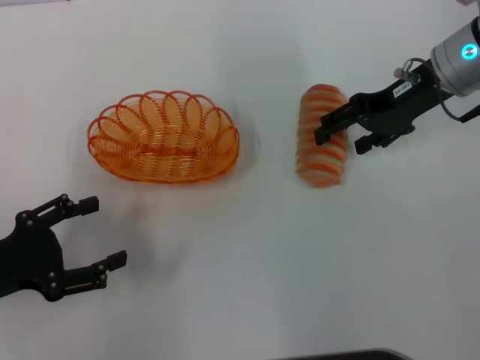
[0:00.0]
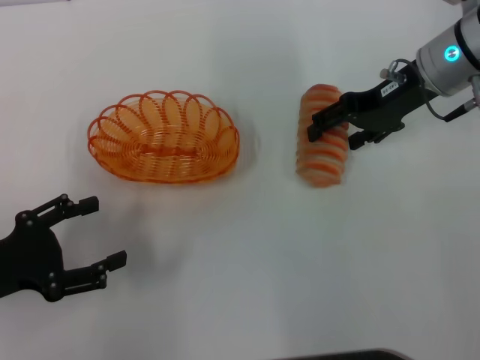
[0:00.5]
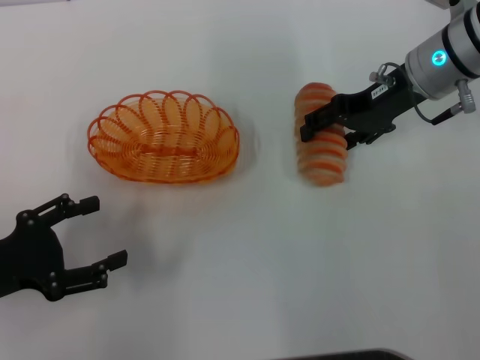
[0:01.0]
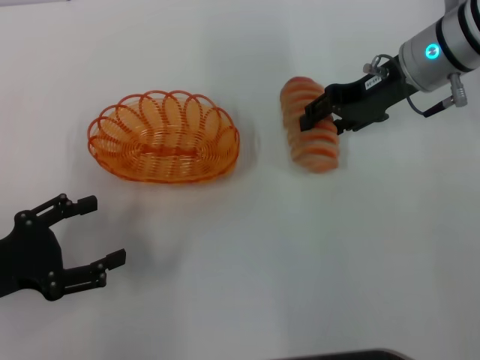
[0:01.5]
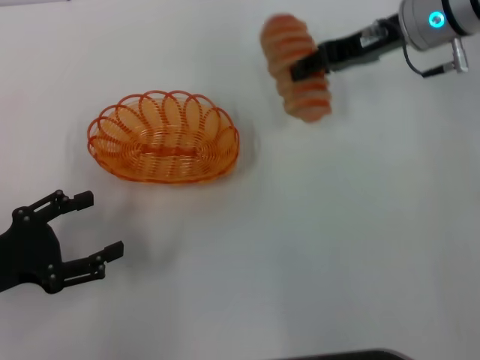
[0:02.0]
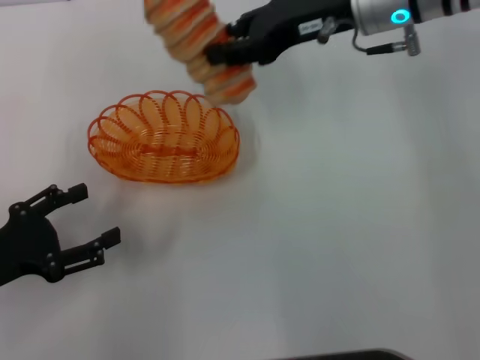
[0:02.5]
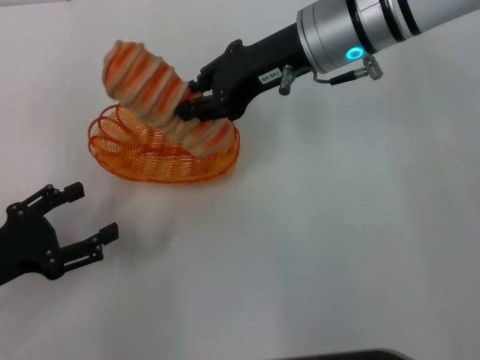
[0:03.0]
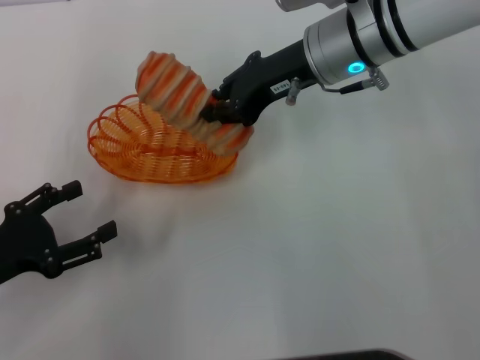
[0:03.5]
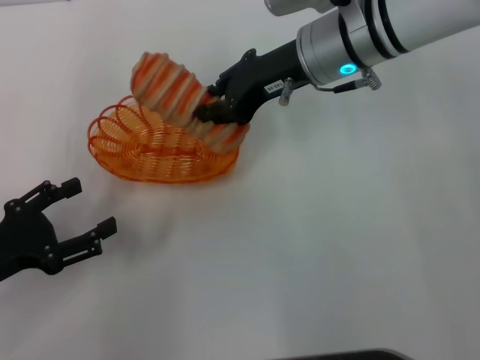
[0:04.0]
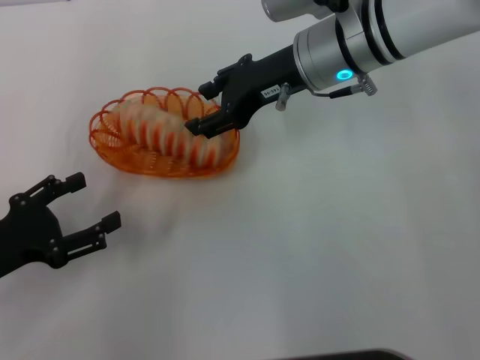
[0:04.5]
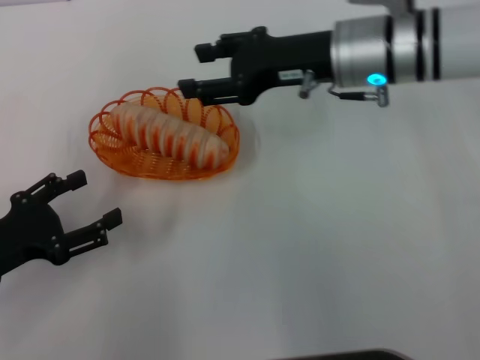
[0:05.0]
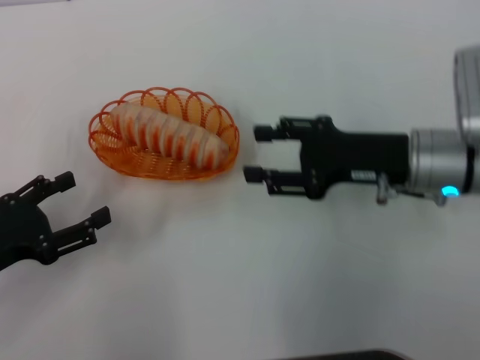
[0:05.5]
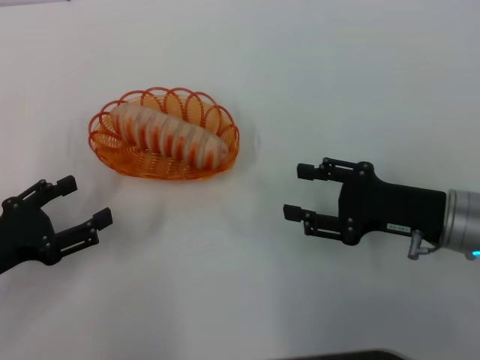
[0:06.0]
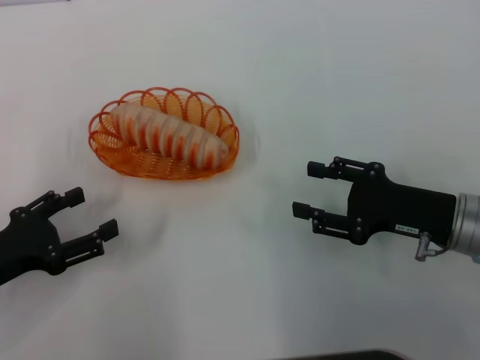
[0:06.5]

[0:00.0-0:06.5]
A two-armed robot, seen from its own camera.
Step, 0:02.0 to 0:05.0: Place the long bread into the basket with the right gripper.
0:00.0 to 0:02.0: The right gripper closes.
0:02.0 to 0:04.5: The right gripper shifts approximately 10 cm to the left, and closes and opens again.
0:04.5 to 0:06.5: The right gripper heads backward, to the right and downward, covering roughly 25 cm.
